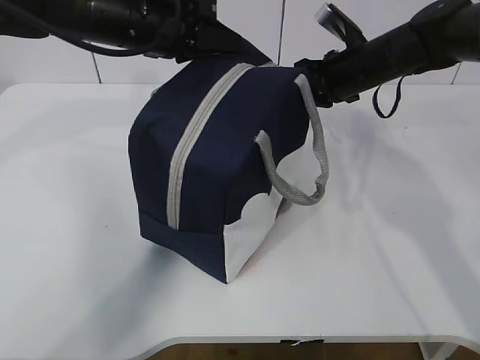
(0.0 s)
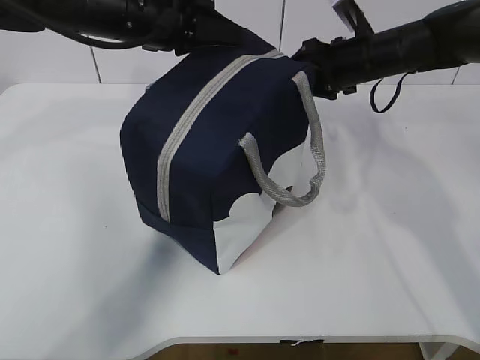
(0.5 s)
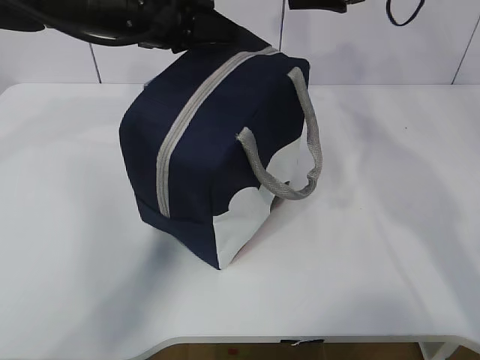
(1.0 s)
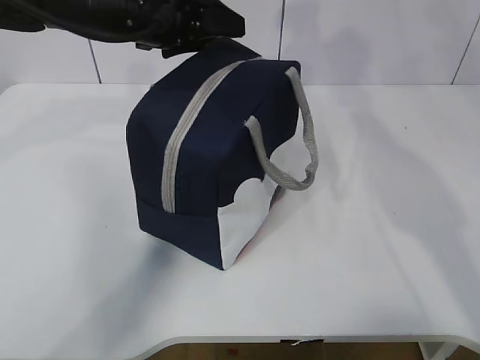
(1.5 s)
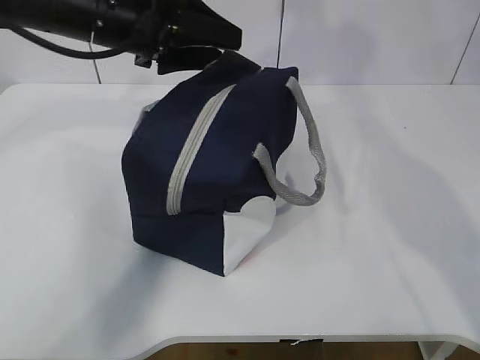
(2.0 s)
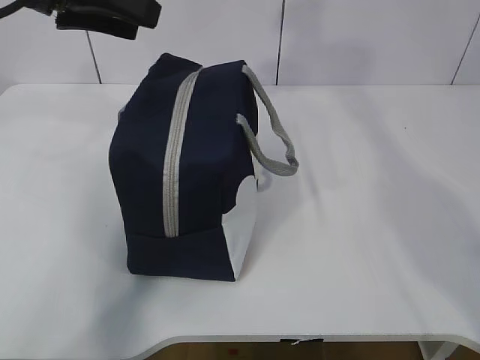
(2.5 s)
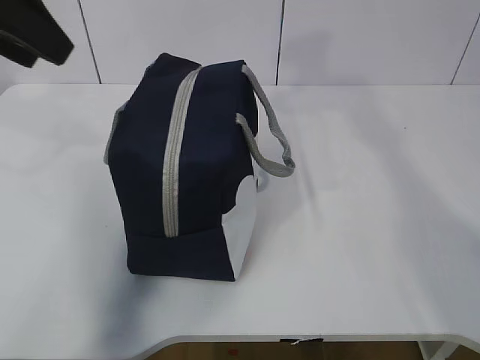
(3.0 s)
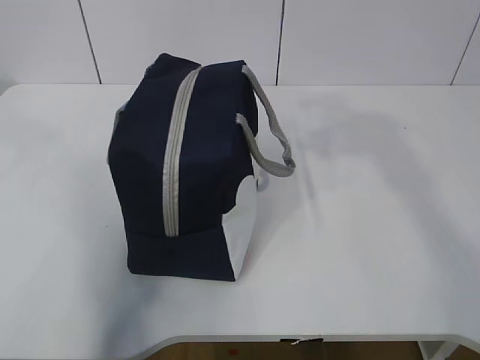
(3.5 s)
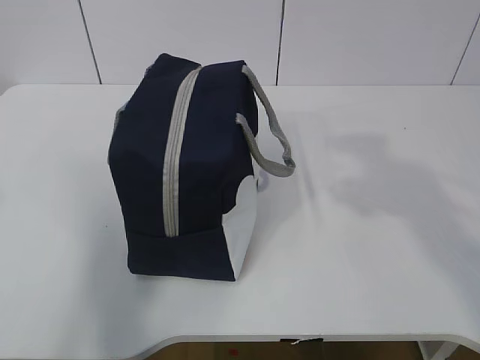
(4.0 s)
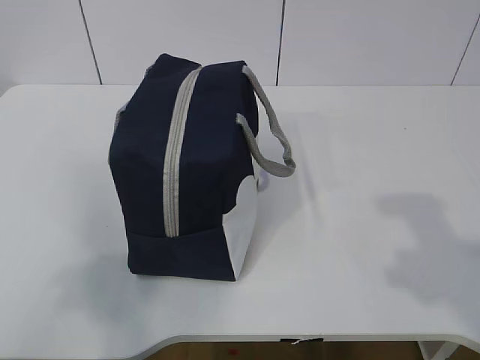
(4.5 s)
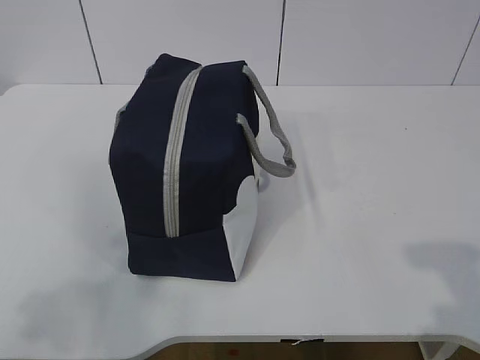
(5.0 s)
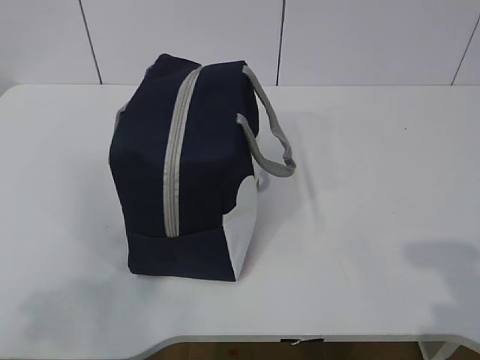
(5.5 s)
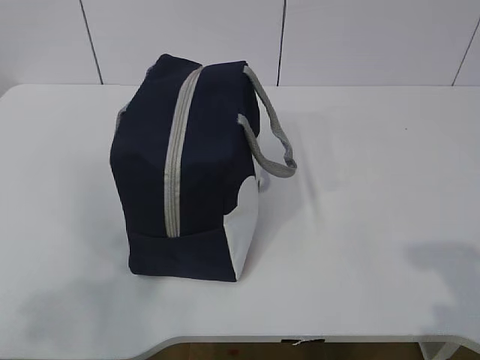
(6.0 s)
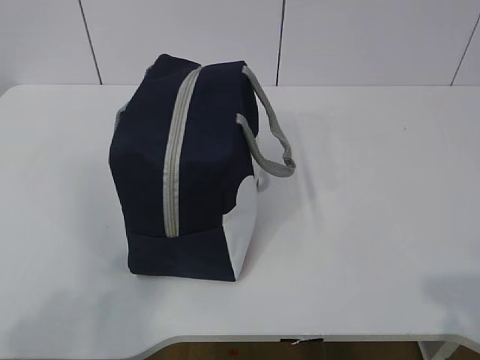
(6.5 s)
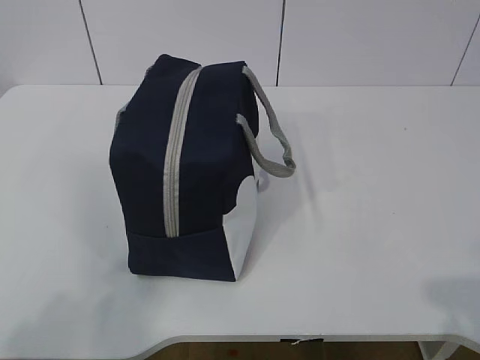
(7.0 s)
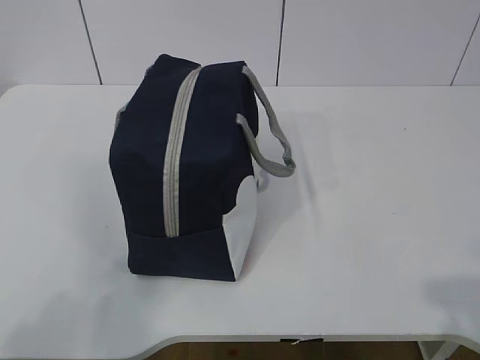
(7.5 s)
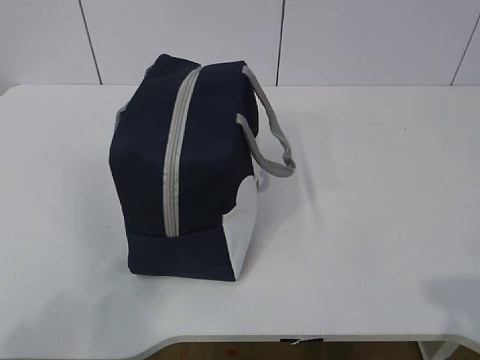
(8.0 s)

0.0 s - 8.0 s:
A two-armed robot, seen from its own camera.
0.0 s - 2.0 s: The left gripper opens its fingers, while the right gripper heads upward, covering roughly 25 cm, and opens its fingers.
2.0 s - 4.0 s: The left gripper moves backward, to the left and upward, about 35 cm, while the right gripper shifts some 25 cm backward.
4.0 s - 6.0 s: The two grippers go some 15 cm downward and backward.
6.0 s - 8.0 s: The grippers both shift backward by approximately 5 cm.

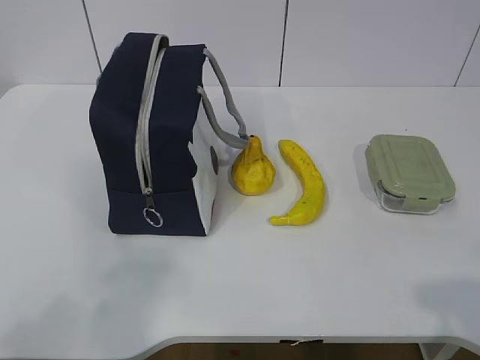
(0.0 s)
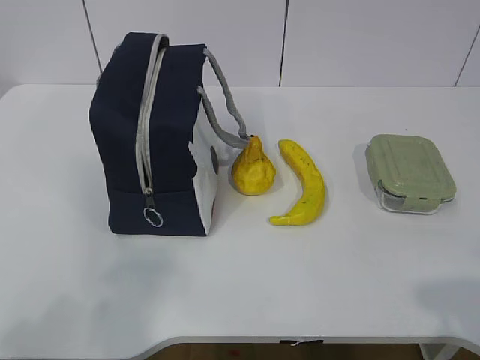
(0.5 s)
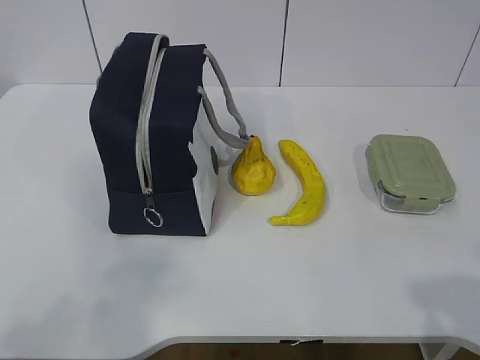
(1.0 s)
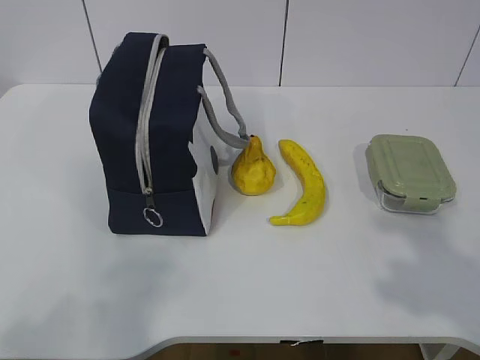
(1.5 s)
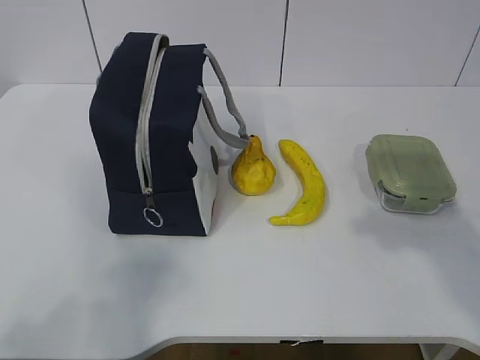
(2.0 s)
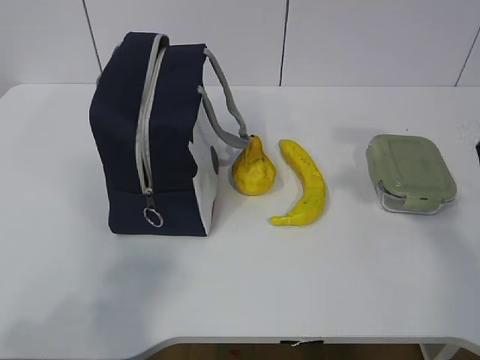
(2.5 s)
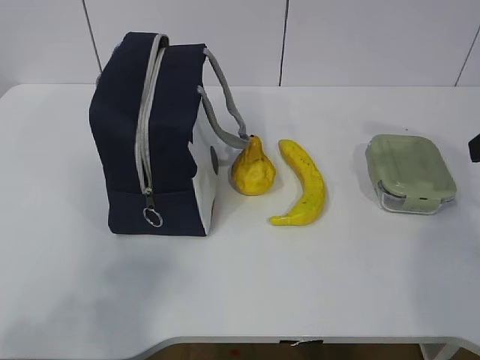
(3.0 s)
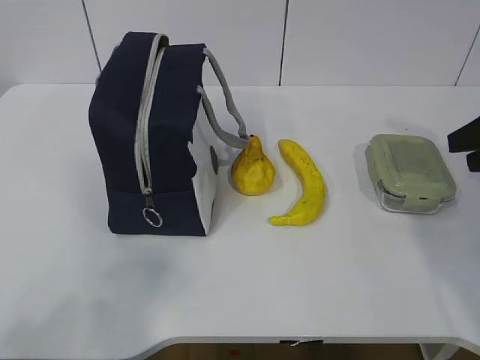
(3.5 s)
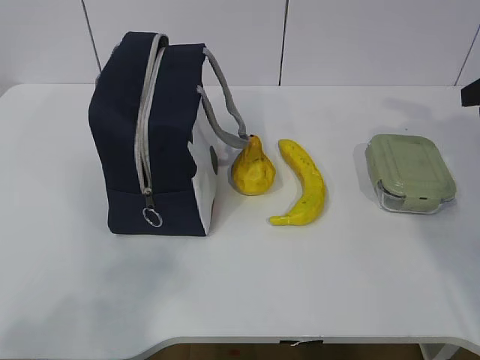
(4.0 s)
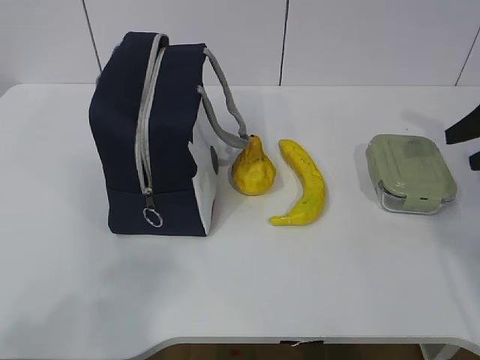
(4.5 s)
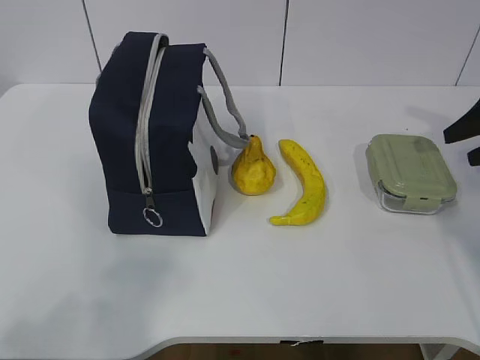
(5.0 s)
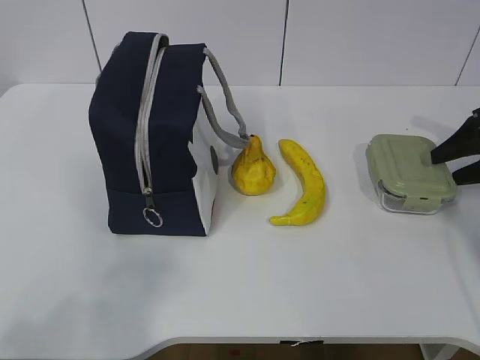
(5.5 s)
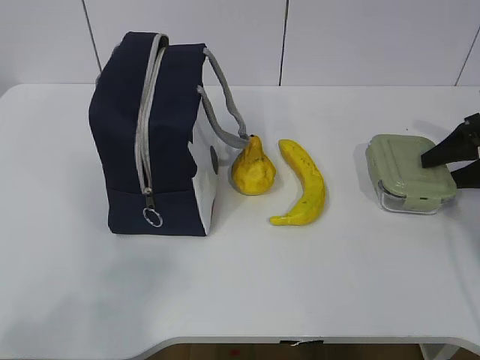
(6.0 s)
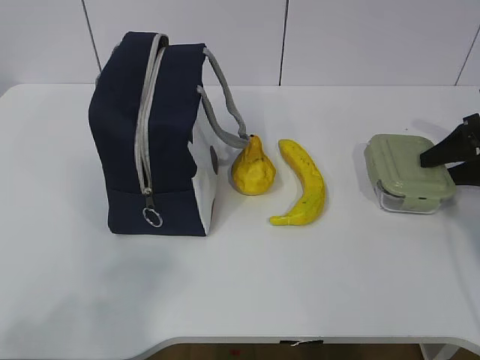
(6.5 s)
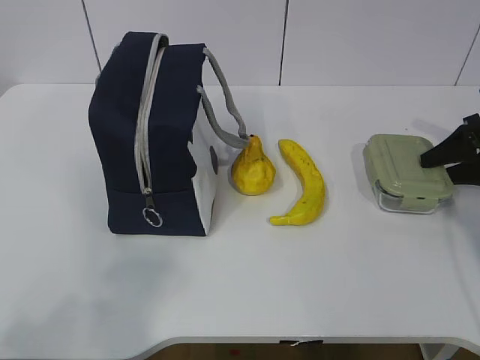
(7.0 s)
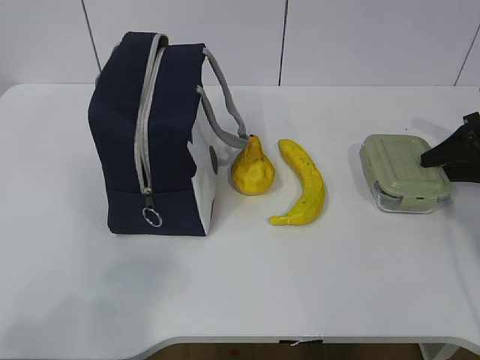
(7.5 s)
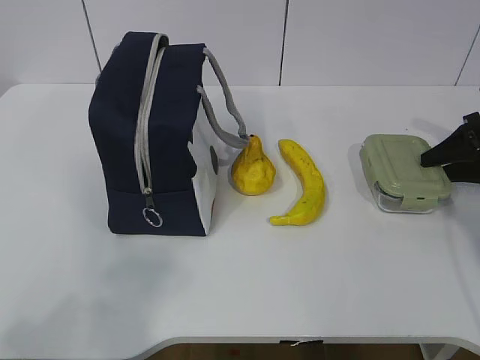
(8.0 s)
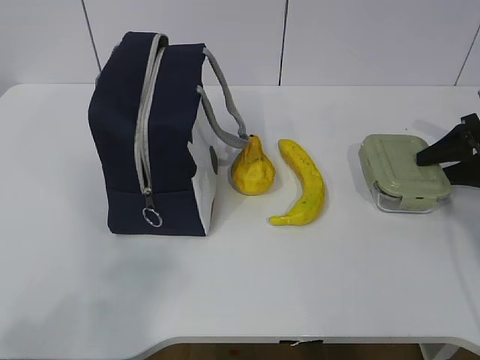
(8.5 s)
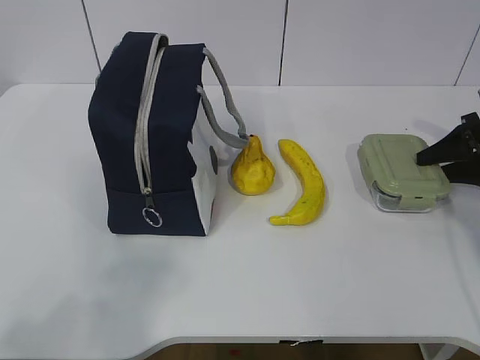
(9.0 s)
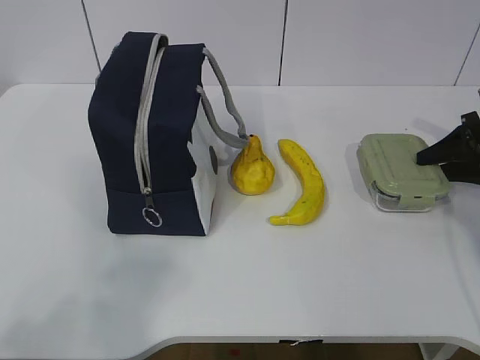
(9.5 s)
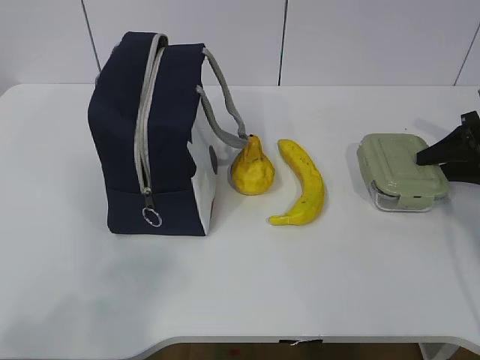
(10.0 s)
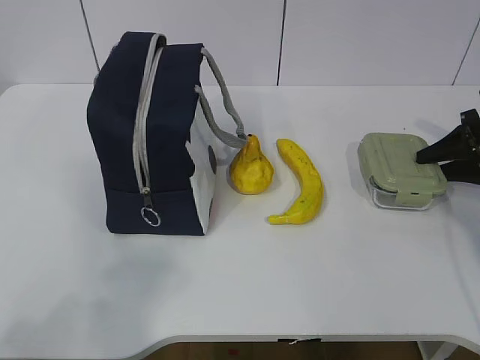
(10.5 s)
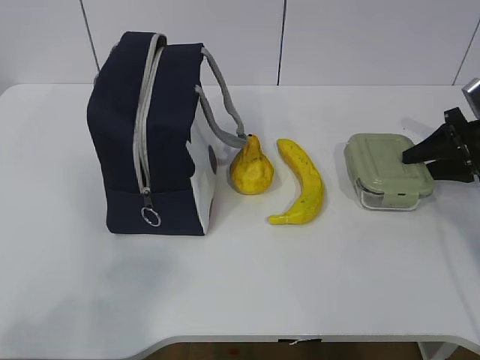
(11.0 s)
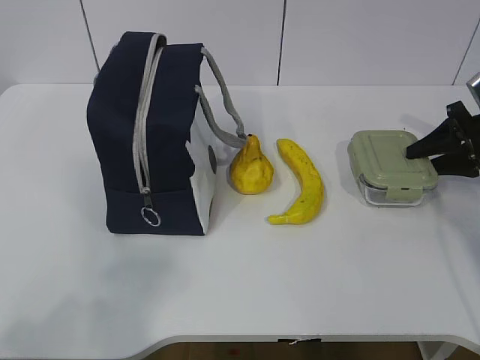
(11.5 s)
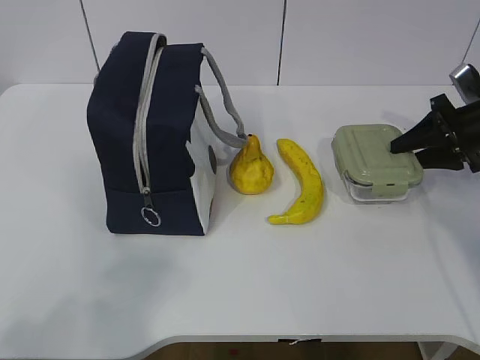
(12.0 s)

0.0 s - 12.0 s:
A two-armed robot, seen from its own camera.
Step, 0.0 s - 9.0 s: Grab the lunch box with your right hand.
2.0 s - 4.0 s: The right gripper shifts about 25 cm forward and to the right.
4.0 s - 6.0 s: The right gripper moves downward and forward, approximately 15 cm.
6.0 s - 10.0 s: Both grippers stay put.
10.0 s - 12.0 s: The right gripper ends up about 5 cm from where it was.

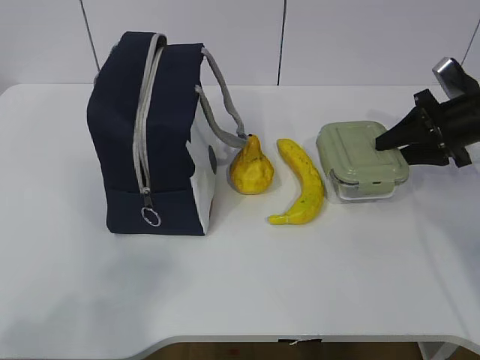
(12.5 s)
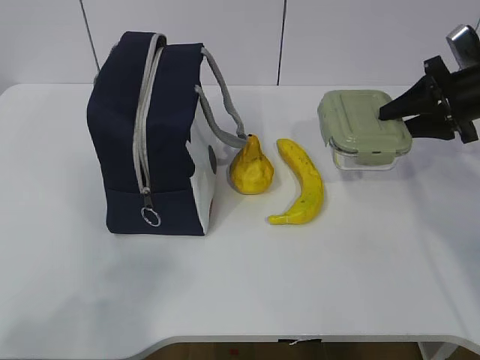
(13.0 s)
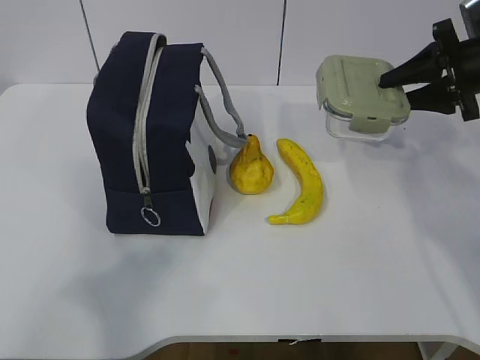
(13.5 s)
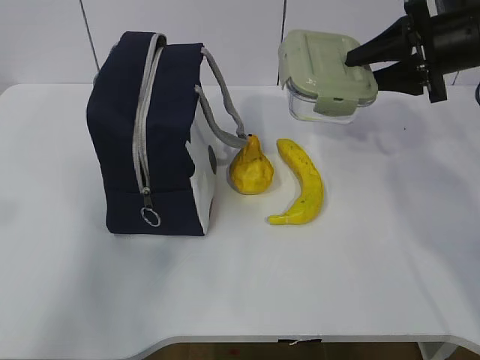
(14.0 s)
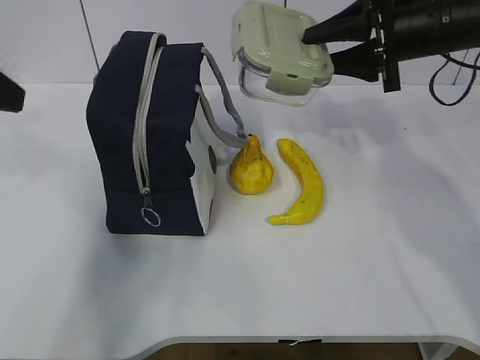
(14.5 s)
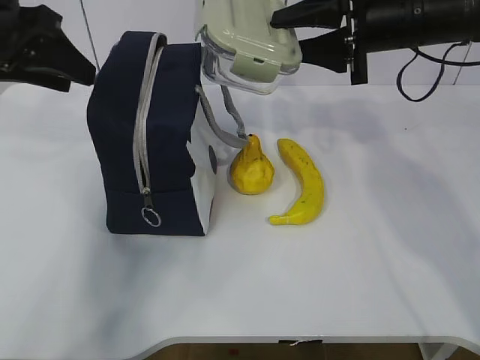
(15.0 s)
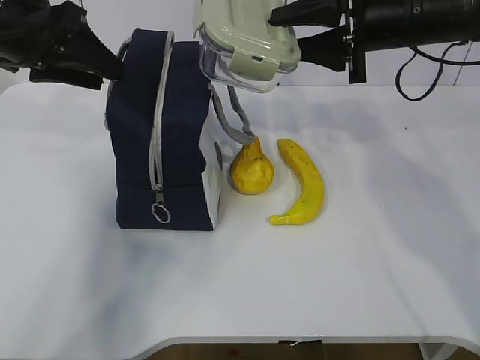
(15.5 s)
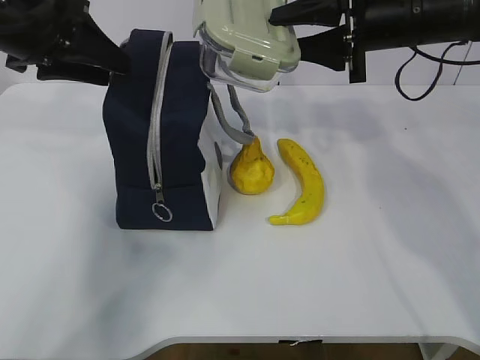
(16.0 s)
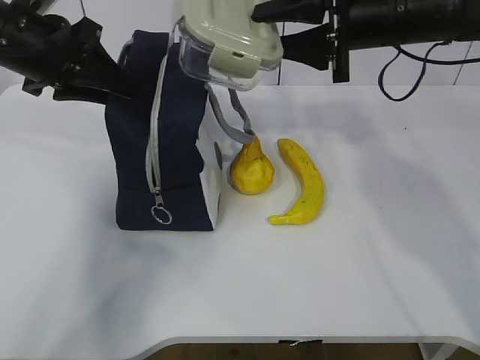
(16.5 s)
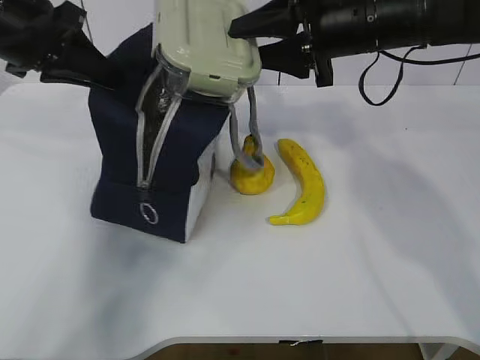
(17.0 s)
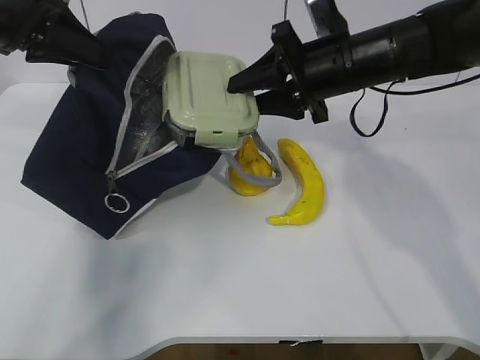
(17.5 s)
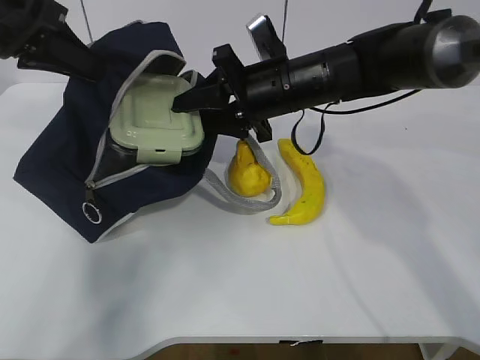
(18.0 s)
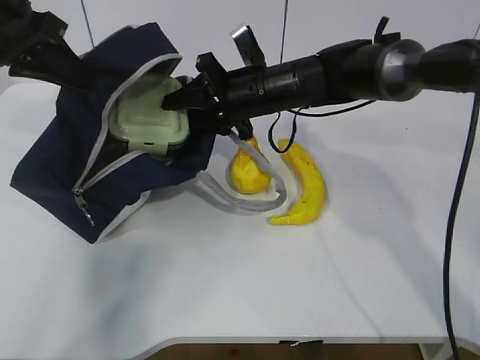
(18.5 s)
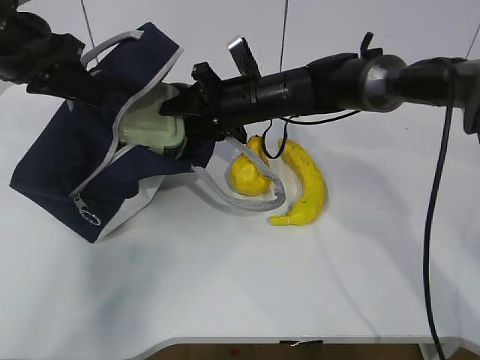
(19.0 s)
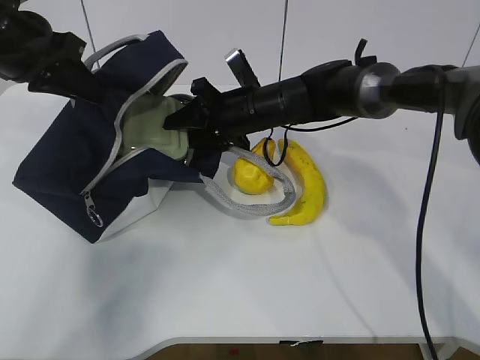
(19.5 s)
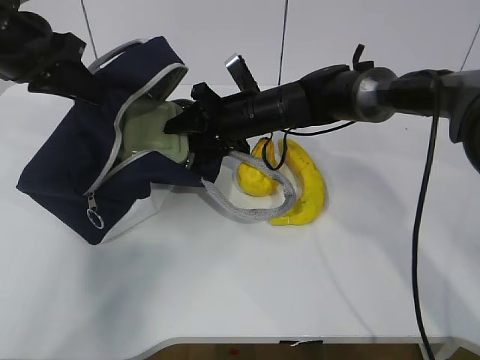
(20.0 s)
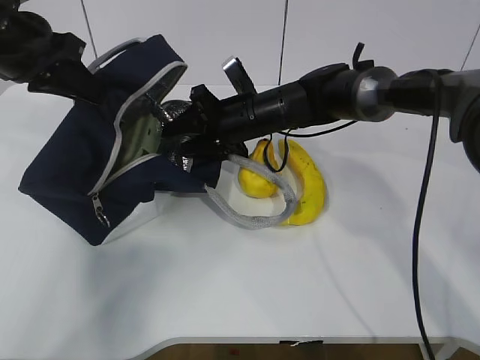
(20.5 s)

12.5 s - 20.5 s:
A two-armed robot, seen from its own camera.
Step, 14.5 s - 17.0 s: Place it into the bag with your right hand.
Step, 17.5 s - 20.0 s: Grab the banana with your right hand.
12.5 s - 14.5 s: The right gripper shifts some 15 cm upward and to the left. Meanwhile the left gripper is displaced forward by some 25 cm.
14.5 s - 16.5 s: The right gripper heads to the left, covering some 5 cm. The left gripper travels forward and downward by roughly 15 cm.
16.5 s - 18.5 s: The right gripper travels to the left, downward and forward by some 15 cm; the left gripper closes.
